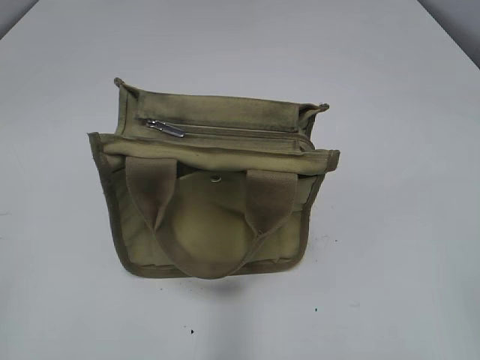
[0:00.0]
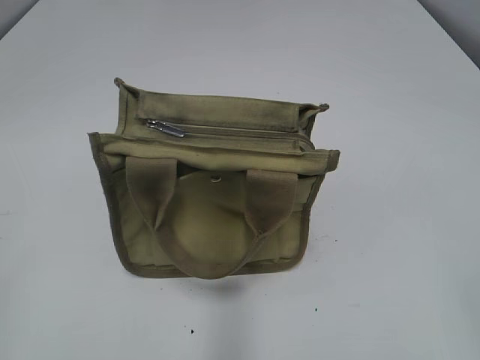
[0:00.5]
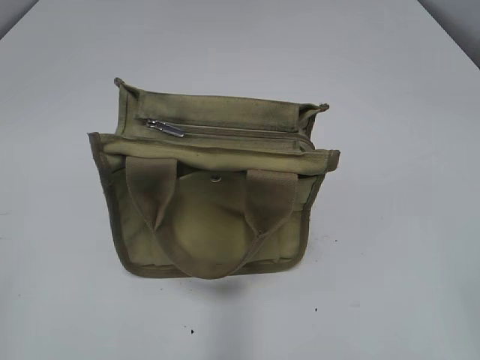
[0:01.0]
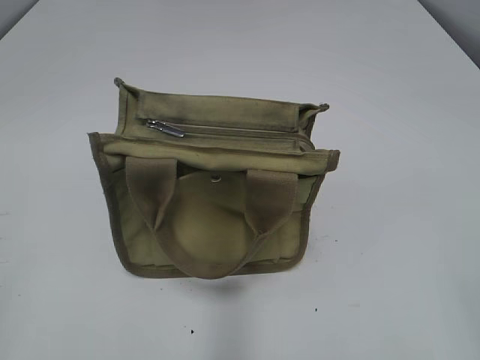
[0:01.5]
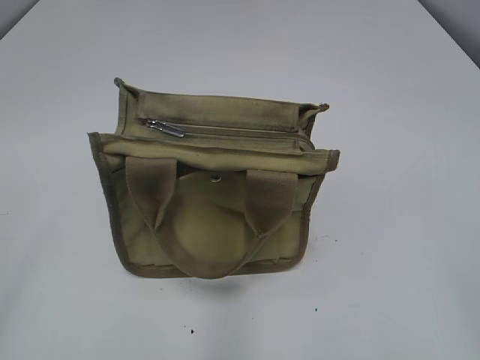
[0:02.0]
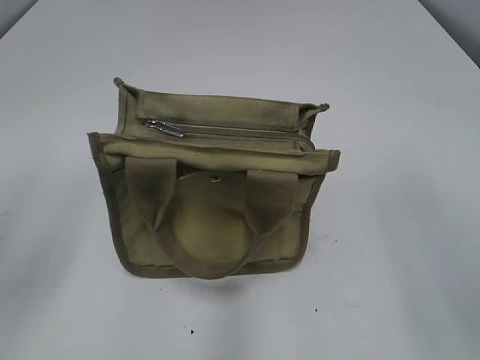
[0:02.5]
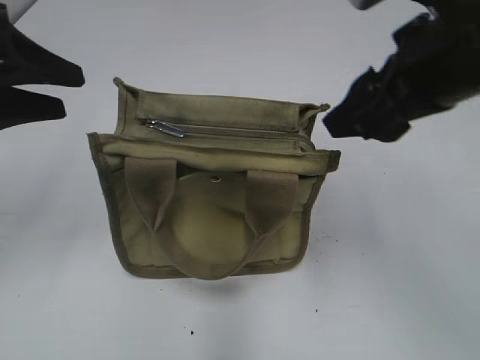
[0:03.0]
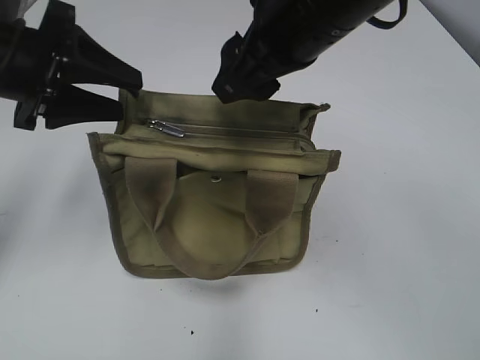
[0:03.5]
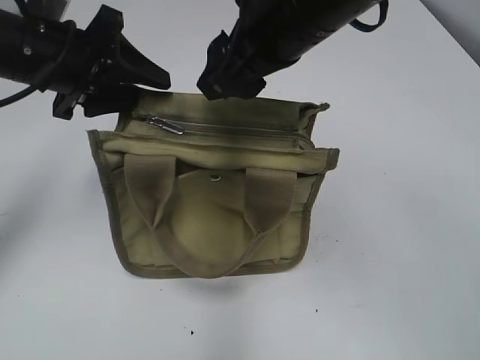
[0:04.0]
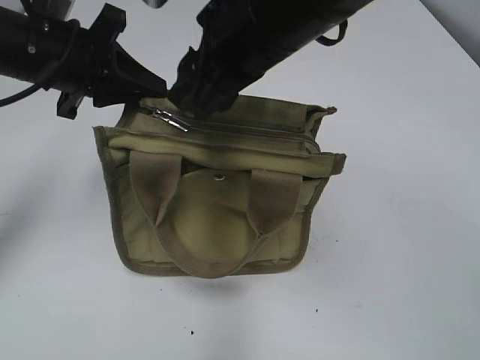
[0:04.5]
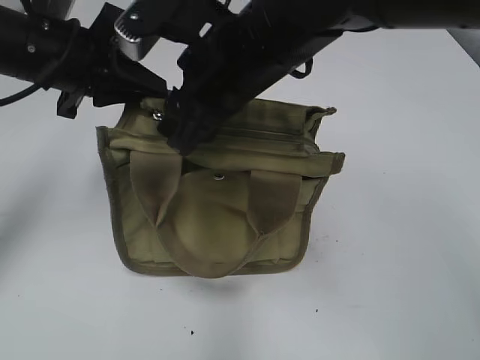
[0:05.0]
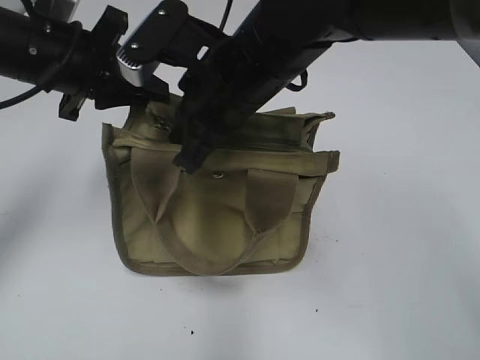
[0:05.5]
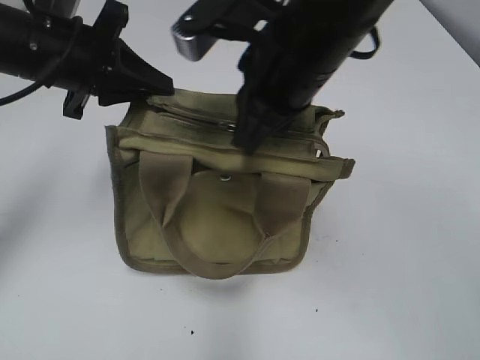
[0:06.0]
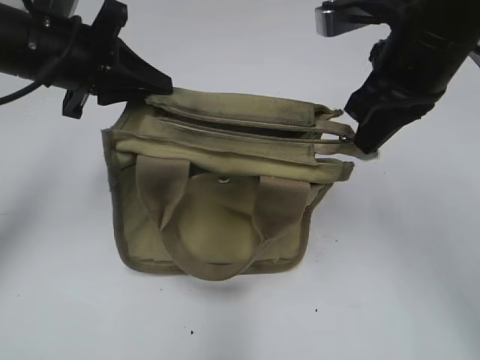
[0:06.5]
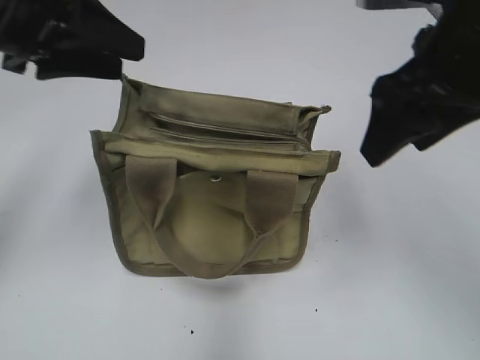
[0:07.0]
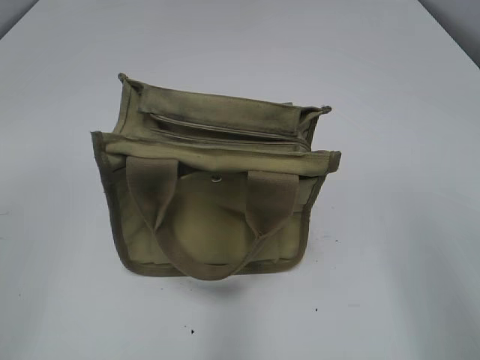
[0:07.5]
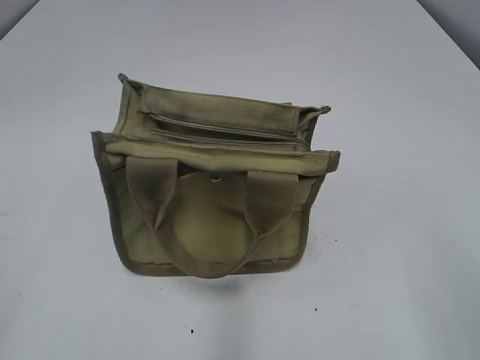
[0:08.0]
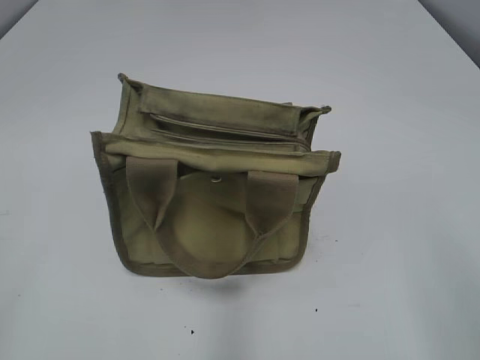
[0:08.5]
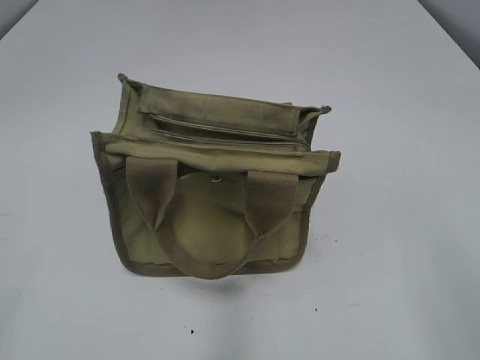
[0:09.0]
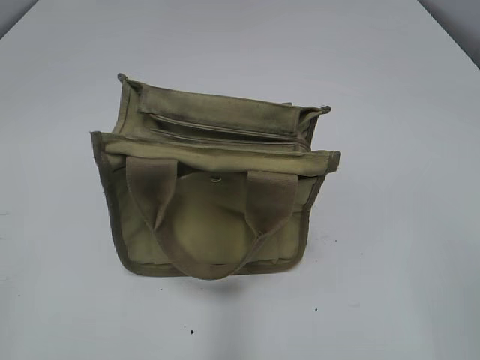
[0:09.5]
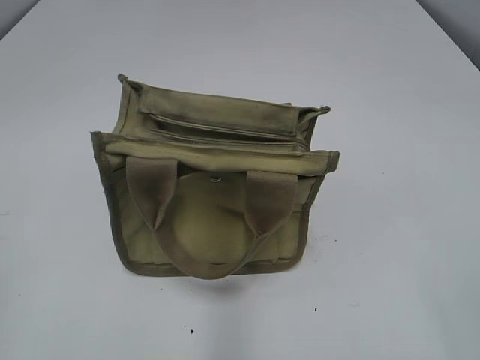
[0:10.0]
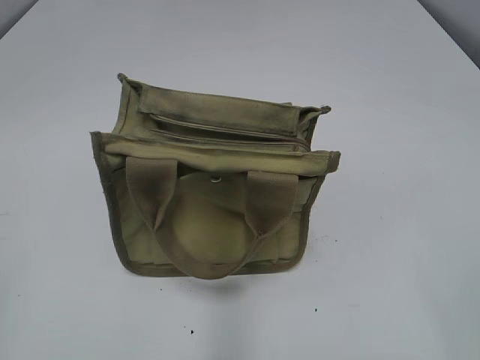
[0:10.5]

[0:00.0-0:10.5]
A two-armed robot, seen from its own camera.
Step, 0:00.0 to 0:06.5: Pull open the zipper with your right hand.
0:02.0 to 0:04.0: The left gripper is displaced forward by some 30 cm. The right gripper shifts roughly 40 cm forward and to the left.
0:04.0 to 0:06.5: The right gripper travels to the right by some 10 cm, and closes its fingers. Meanwhile the left gripper closes its fingers.
0:06.5 to 0:08.5: The right gripper moves backward, approximately 25 cm, and opens. Meanwhile the left gripper goes some 35 cm backward and to the left, and opens up.

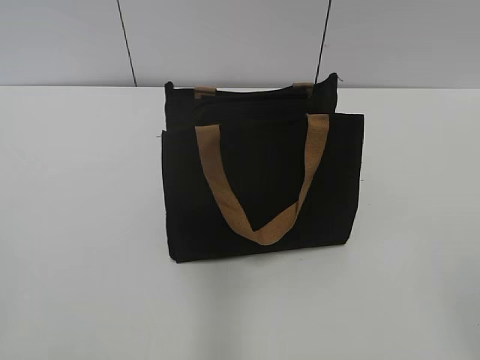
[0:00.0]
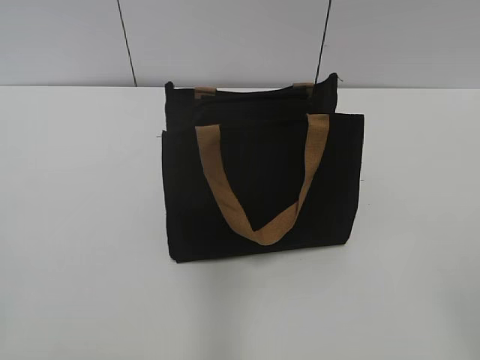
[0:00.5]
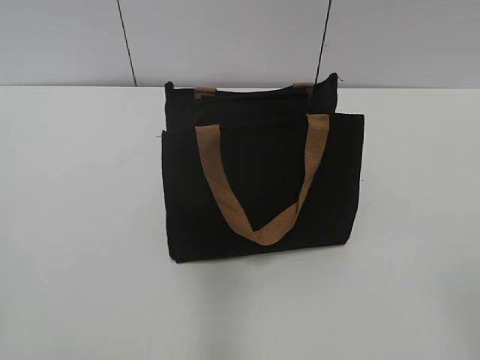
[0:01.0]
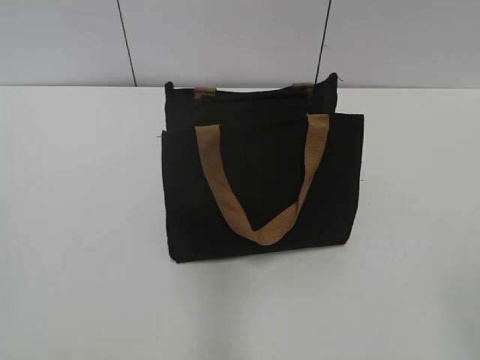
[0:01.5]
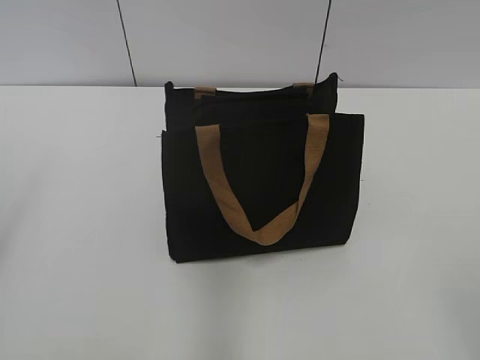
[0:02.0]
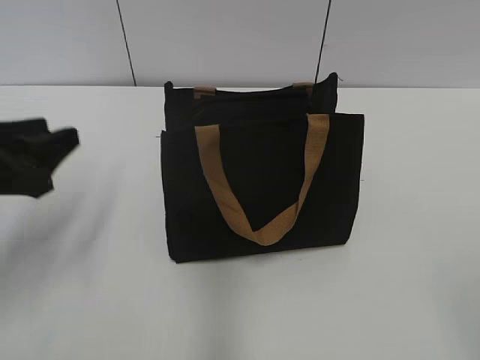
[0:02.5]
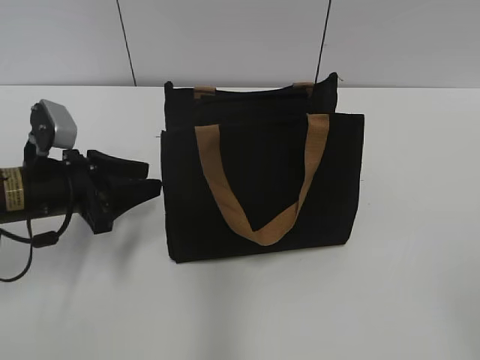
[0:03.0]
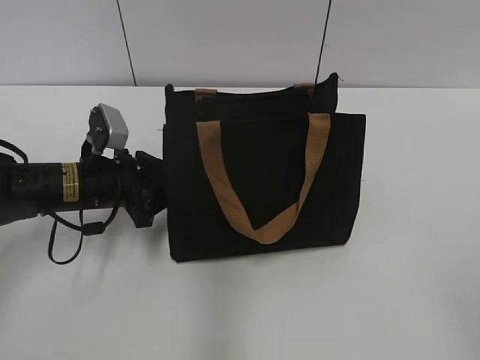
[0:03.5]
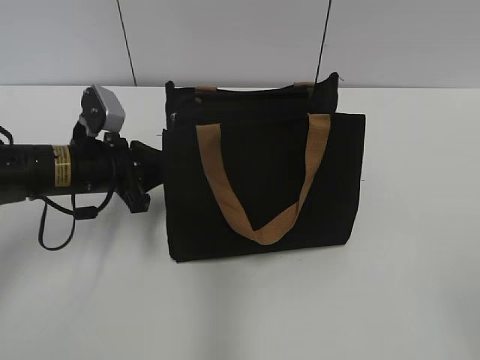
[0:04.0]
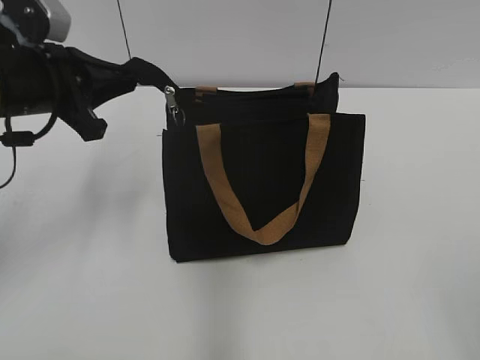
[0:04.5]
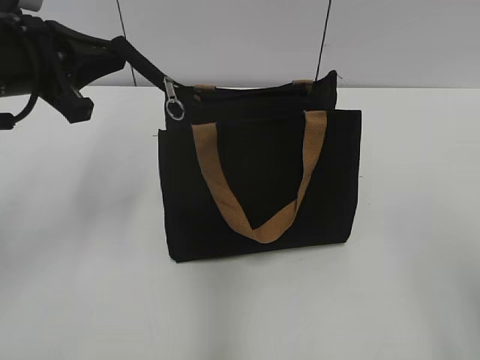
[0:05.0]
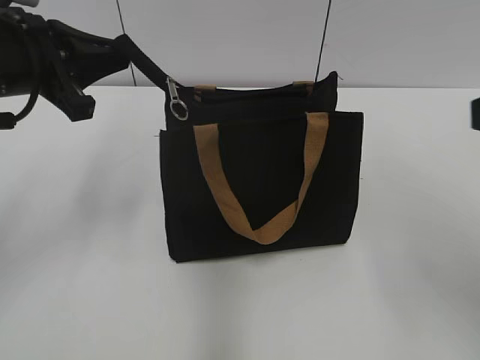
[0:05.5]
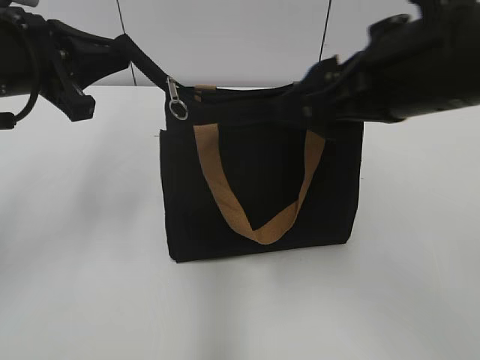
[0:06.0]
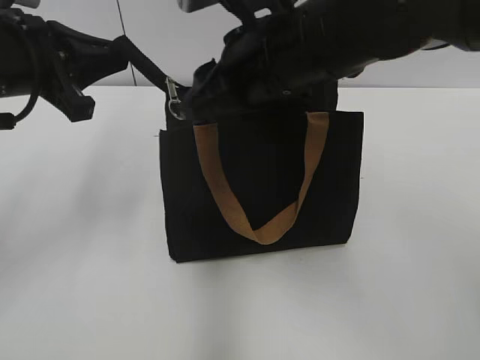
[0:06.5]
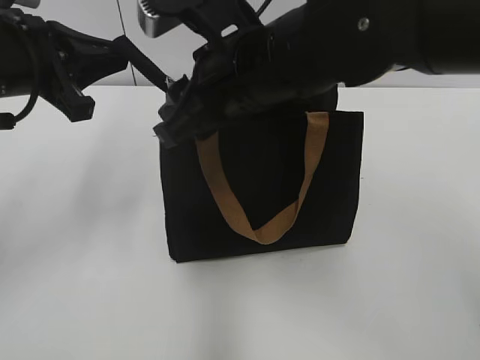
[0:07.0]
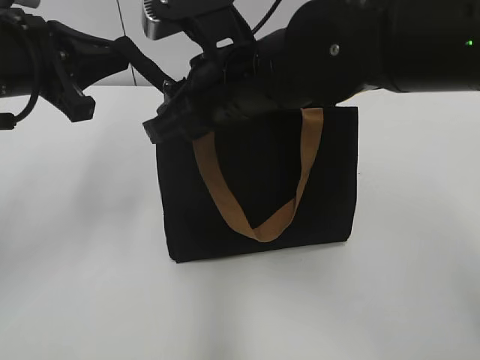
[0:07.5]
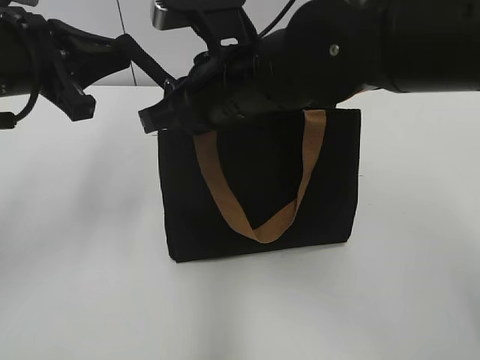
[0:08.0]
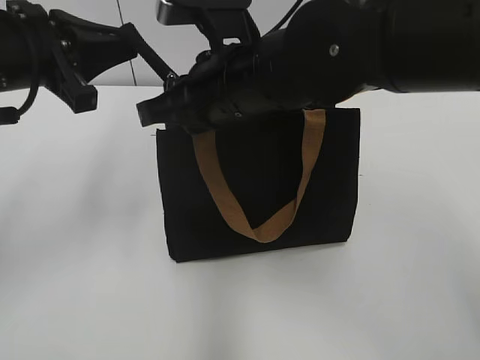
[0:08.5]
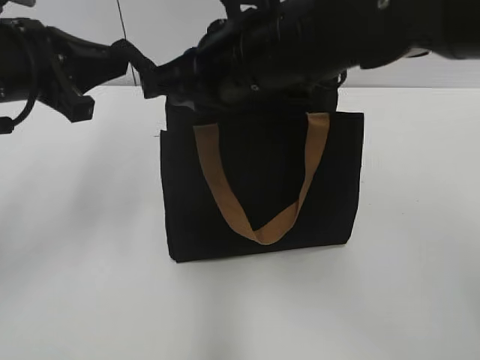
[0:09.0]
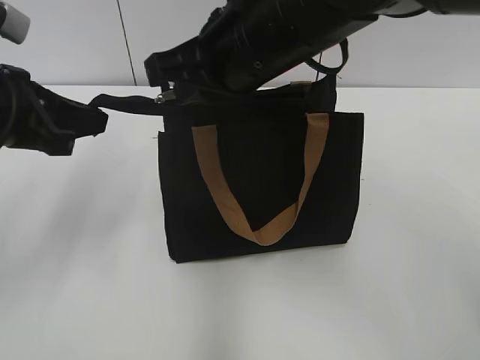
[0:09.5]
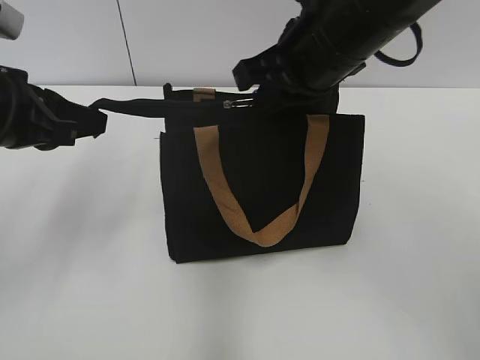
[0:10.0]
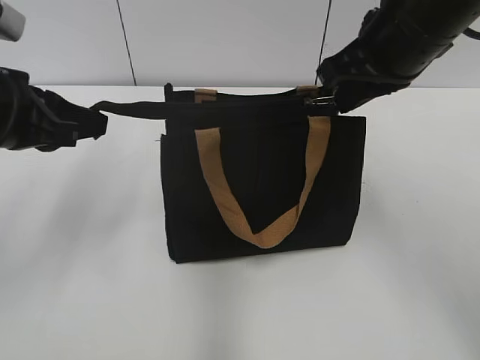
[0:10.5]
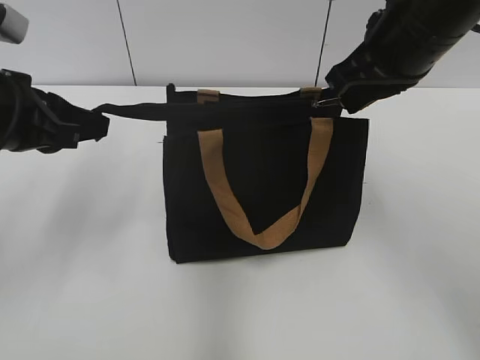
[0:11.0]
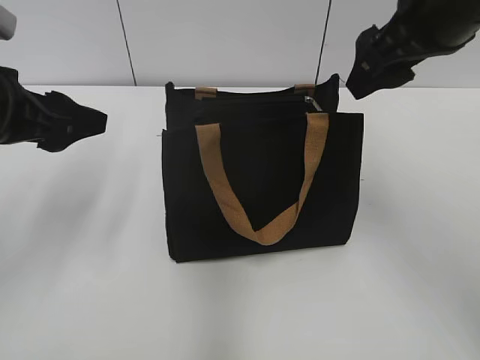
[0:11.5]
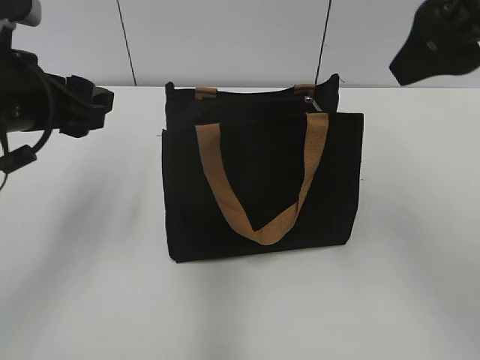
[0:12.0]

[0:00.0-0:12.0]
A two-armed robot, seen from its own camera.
Step, 0:00.0 to 0:11.0: Zip up the bag with your right hand.
0:02.0 to 0:04.0: The left gripper travels forward, downward and to the right by some 30 cm, and closes its fingers.
0:04.0 to 0:06.0: The right gripper is displaced forward and to the left by some 25 cm. The left gripper shifts some 15 cm upward.
0:06.0 to 0:08.0: The right gripper travels to the left, forward and downward by some 15 cm, and closes.
0:08.0 to 0:10.0: The right gripper shifts some 5 cm to the right.
0:10.0 to 0:12.0: The right gripper moves to the right, upward and backward, some 15 cm, and opens its fingers, while the left gripper opens its fingers.

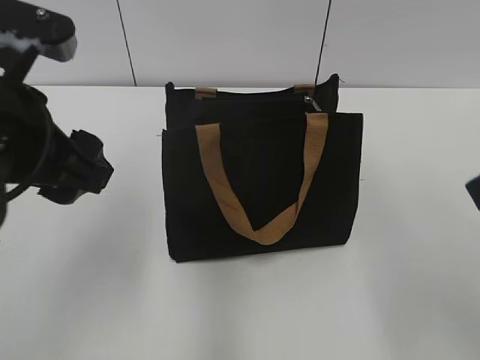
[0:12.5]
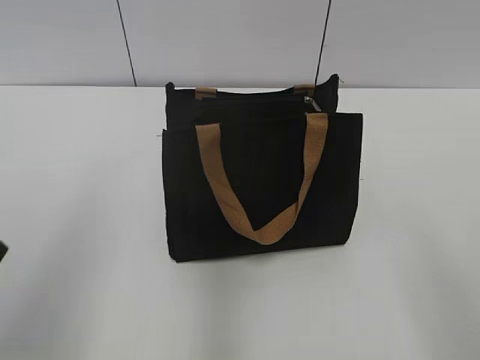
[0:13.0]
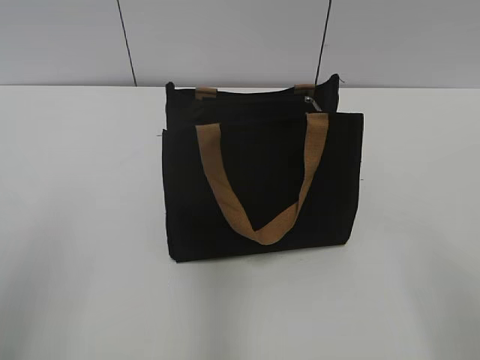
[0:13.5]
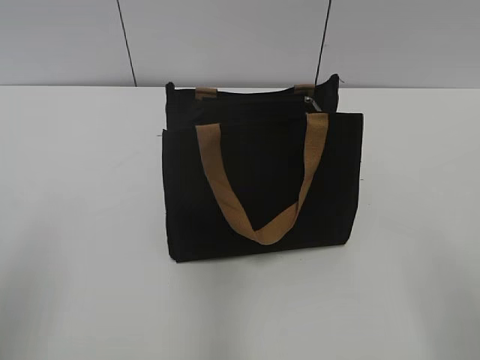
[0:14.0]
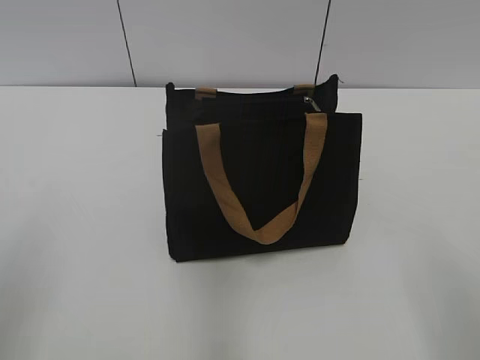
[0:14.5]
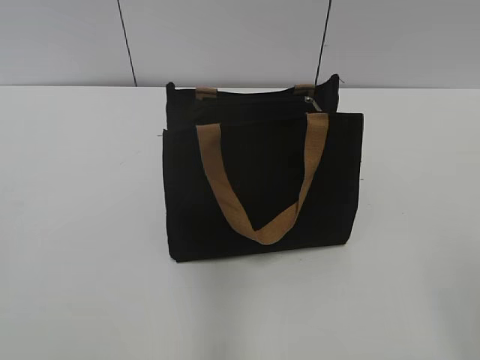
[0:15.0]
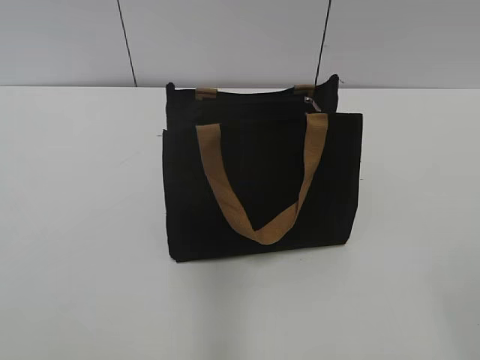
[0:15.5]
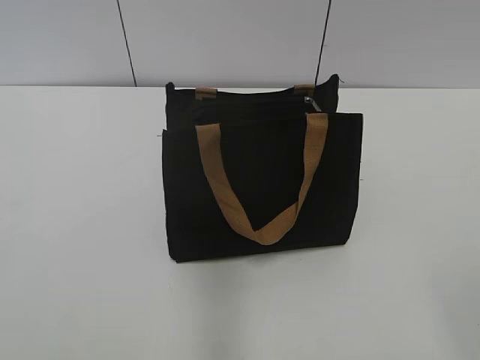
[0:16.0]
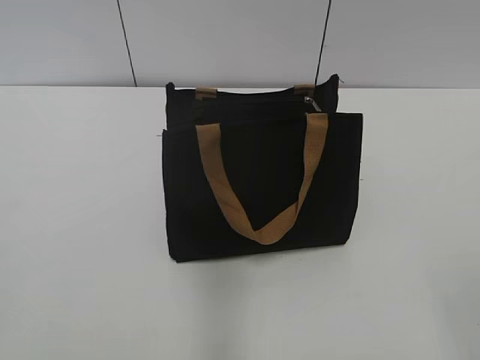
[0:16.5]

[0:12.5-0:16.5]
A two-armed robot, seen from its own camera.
0:12.5 to 0:14.5: The left gripper travels backward and to the left by approximately 15 cm. Meanwhile the right gripper shifts some 15 cm backward and downward.
0:14.5 to 0:16.5: The left gripper goes roughly 5 cm backward.
